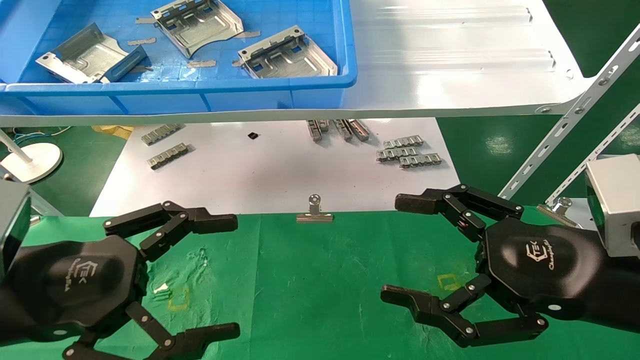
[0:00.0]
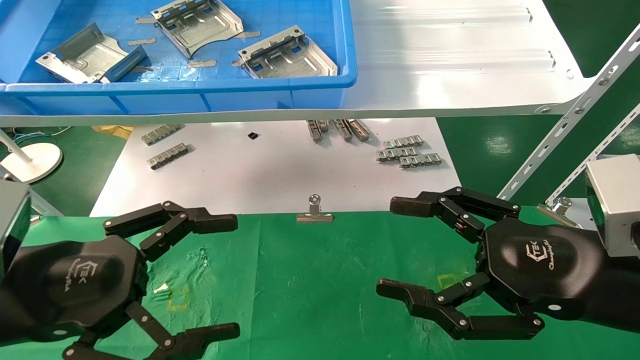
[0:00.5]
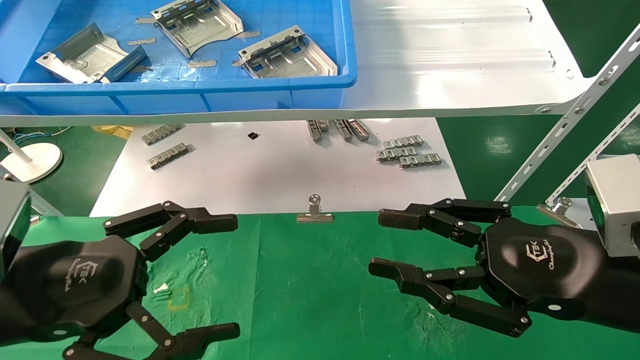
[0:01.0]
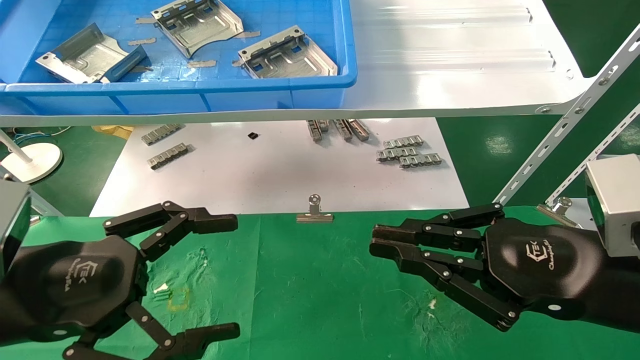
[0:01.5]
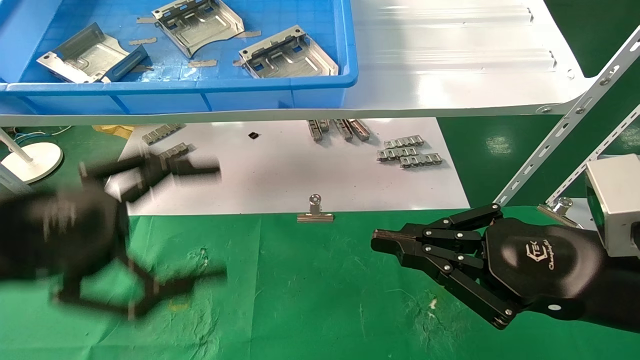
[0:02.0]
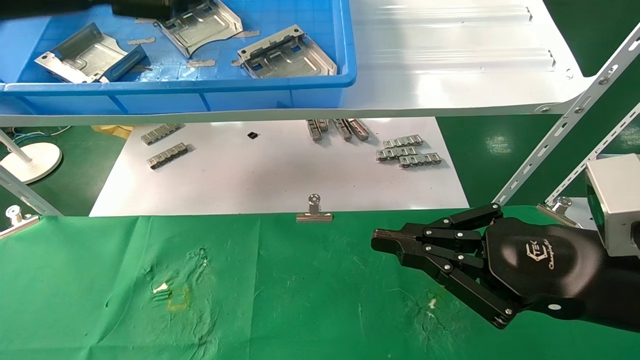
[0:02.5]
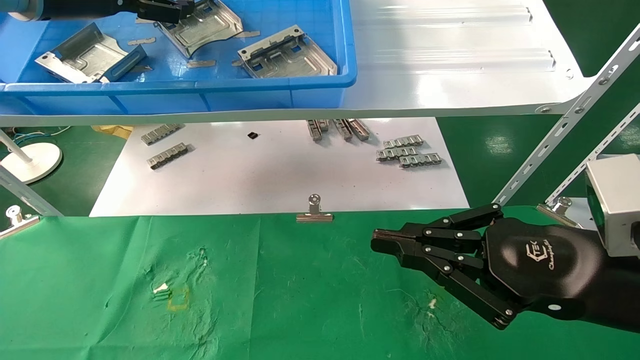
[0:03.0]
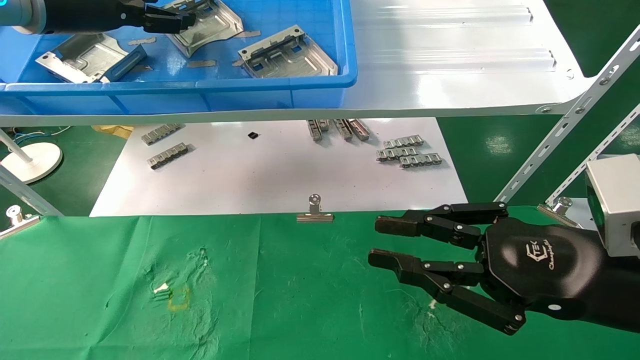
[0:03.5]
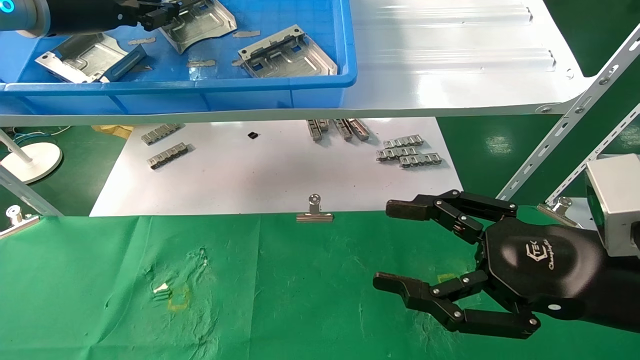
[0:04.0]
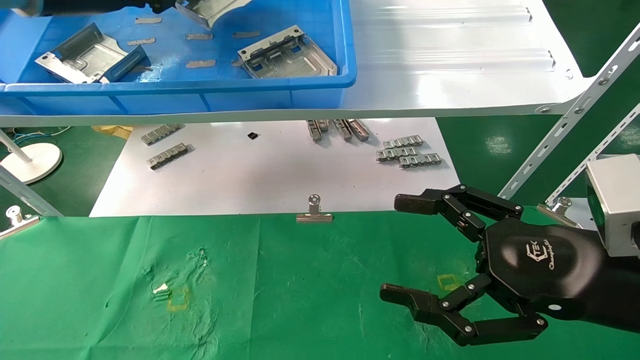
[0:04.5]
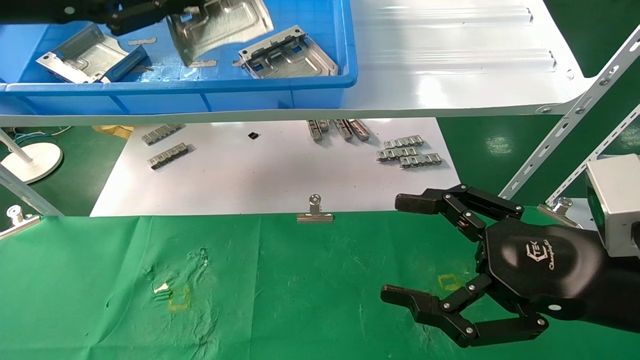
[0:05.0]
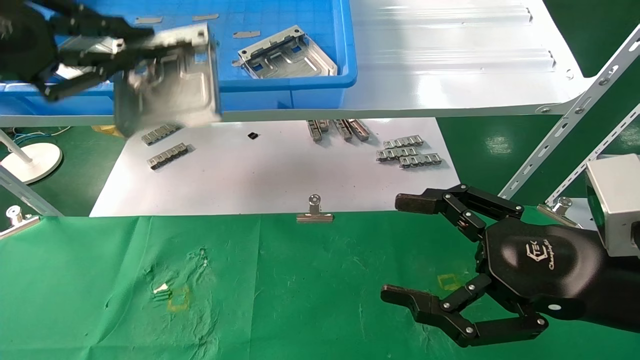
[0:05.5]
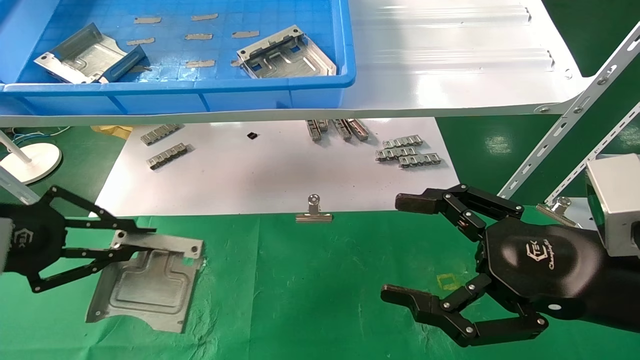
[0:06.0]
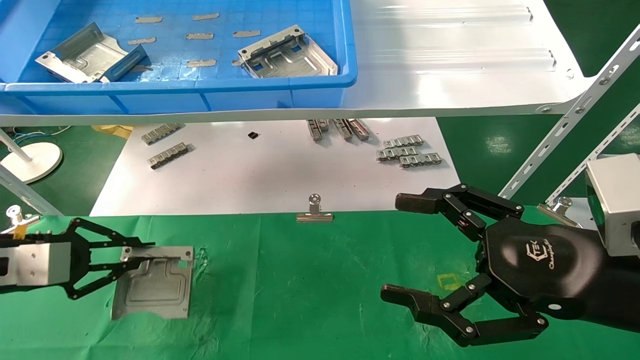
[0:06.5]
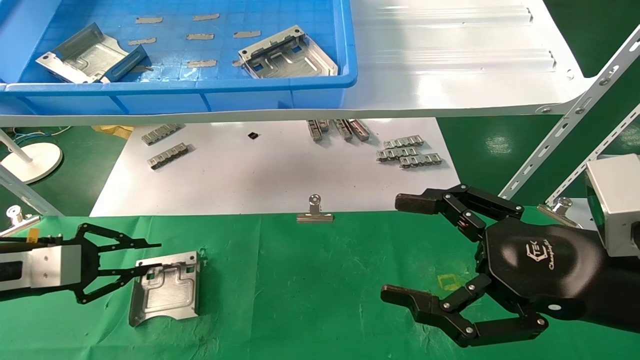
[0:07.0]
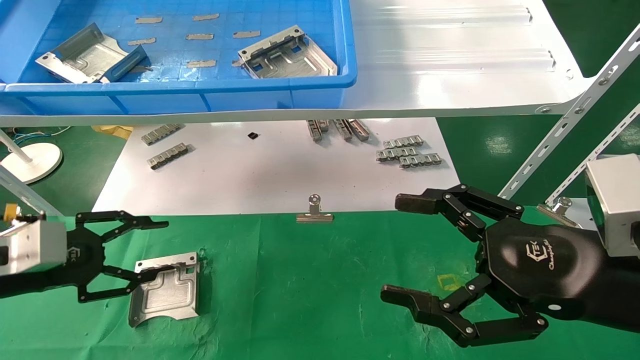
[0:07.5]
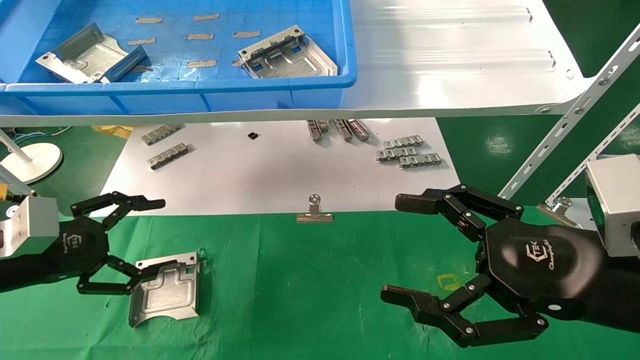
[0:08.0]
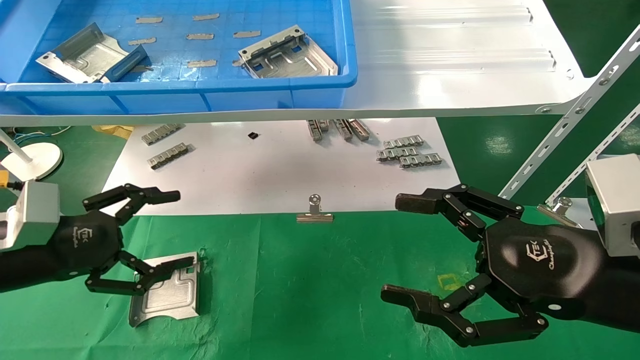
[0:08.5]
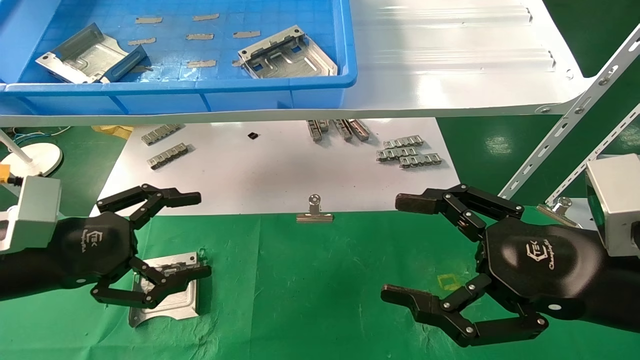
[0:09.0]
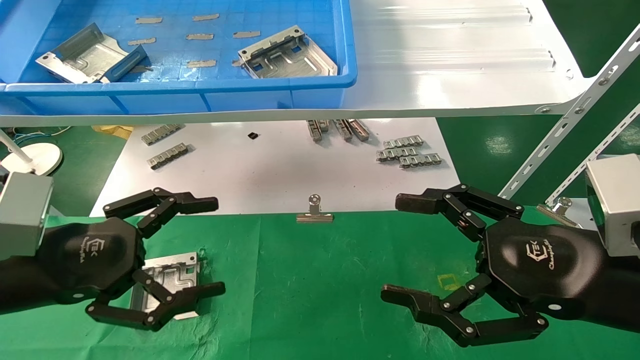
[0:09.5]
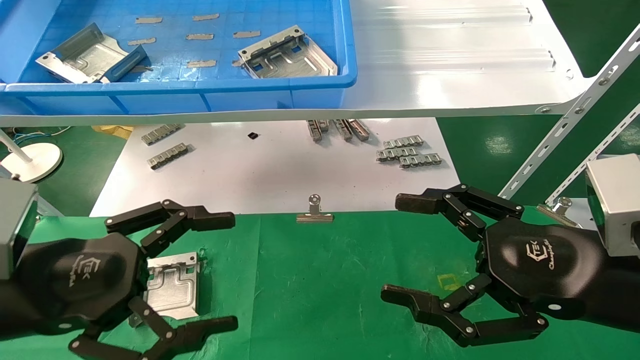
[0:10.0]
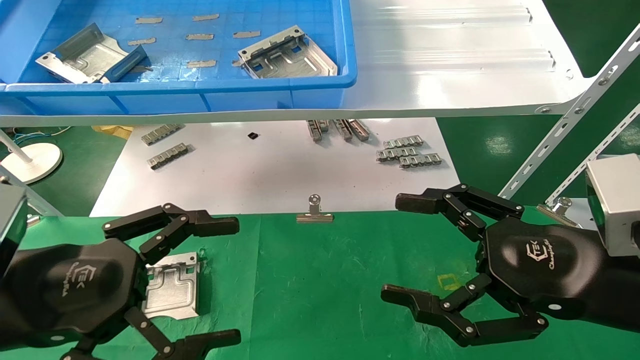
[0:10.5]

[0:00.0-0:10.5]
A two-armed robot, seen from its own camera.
Task of the whole recording: use the mechanical arm to pick up the parts and place them on the table.
Step, 0:02.5 to 0:04.0: Pick up the hard drive bracket from the feeding area.
Step, 0:04.5 to 0:07.0: Place the hard drive bracket into the box.
0:00.0 to 0:02.0: The left gripper is displaced upward by approximately 10 cm, while the right gripper closes its fingers.
0:02.0 to 0:04.0: The right gripper opens; the left gripper shifts some 25 cm forward and upward, and closes its fingers.
0:04.0 to 0:06.5: The left gripper goes approximately 30 cm downward and backward. Meanwhile the right gripper opens its fingers.
0:06.5 to 0:08.5: The left gripper travels to the right by about 5 cm, and opens.
0:08.5 to 0:10.5: The left gripper moves backward and to the right, some 15 cm.
